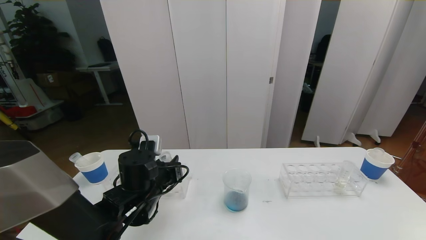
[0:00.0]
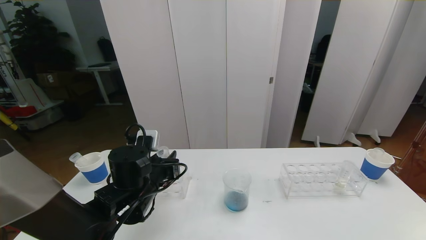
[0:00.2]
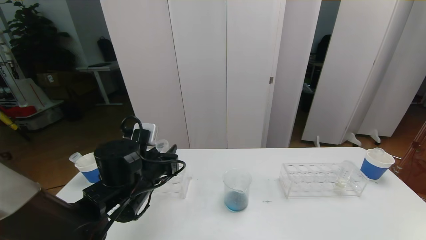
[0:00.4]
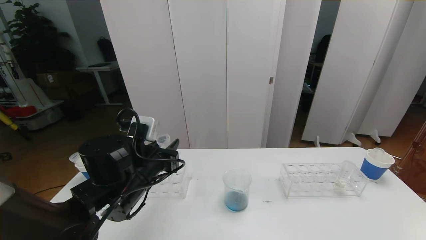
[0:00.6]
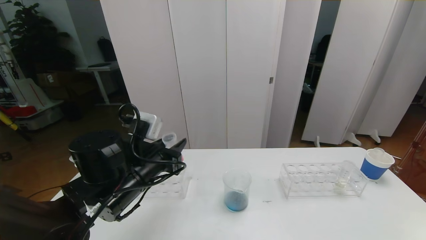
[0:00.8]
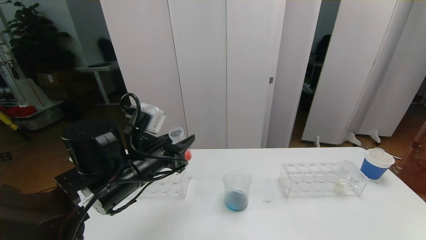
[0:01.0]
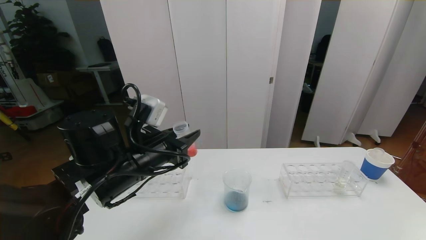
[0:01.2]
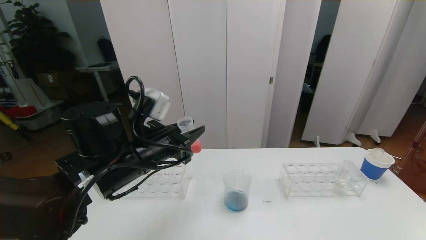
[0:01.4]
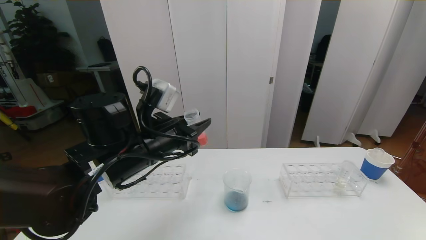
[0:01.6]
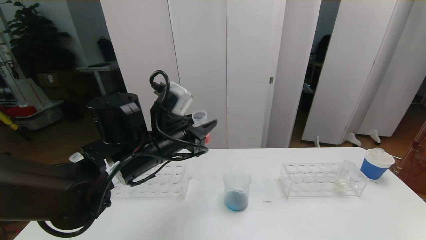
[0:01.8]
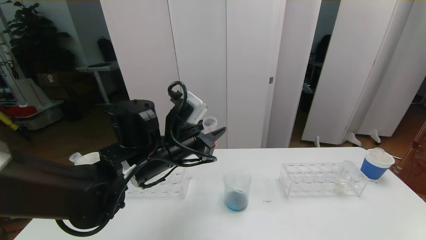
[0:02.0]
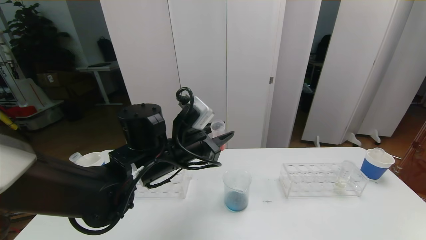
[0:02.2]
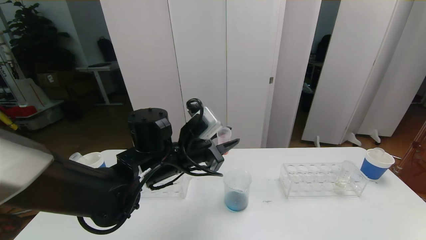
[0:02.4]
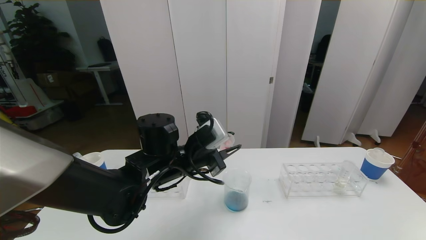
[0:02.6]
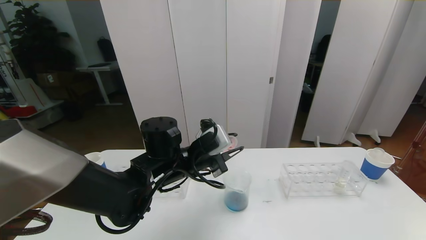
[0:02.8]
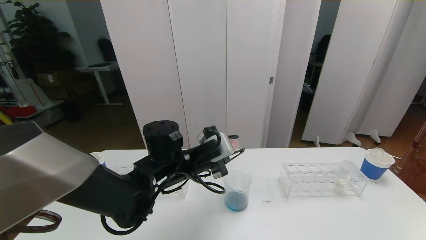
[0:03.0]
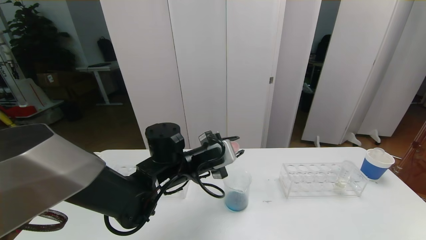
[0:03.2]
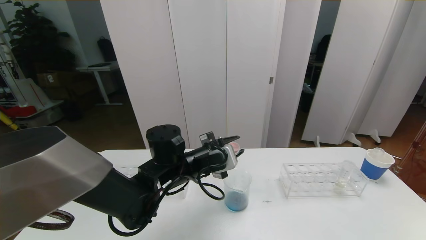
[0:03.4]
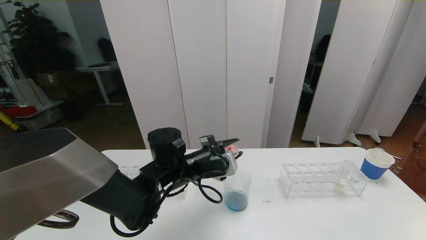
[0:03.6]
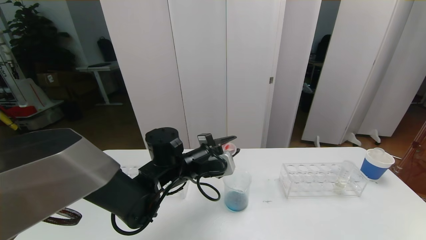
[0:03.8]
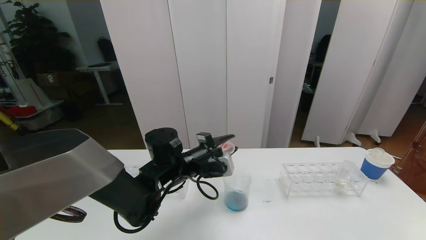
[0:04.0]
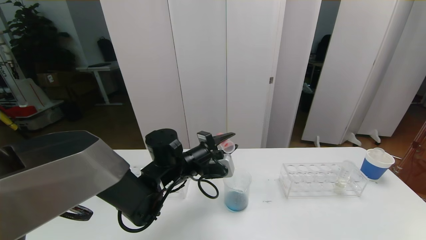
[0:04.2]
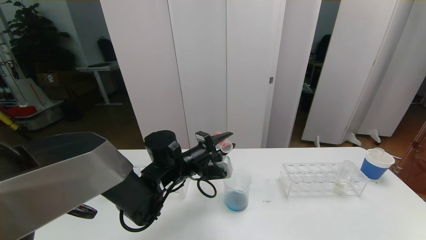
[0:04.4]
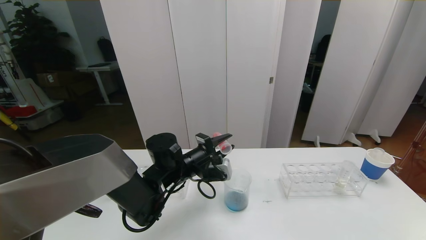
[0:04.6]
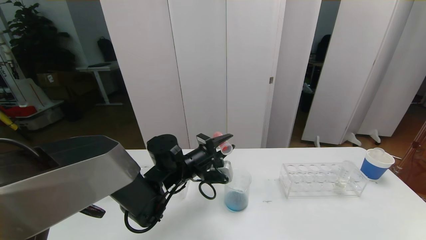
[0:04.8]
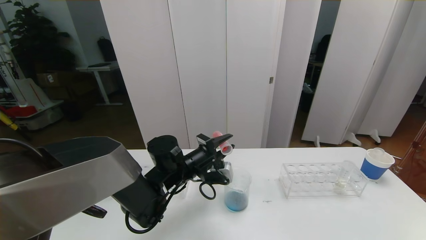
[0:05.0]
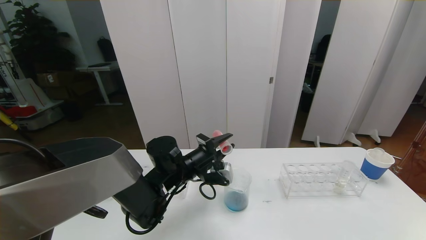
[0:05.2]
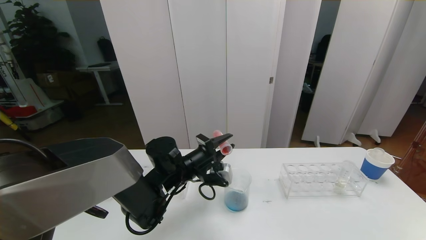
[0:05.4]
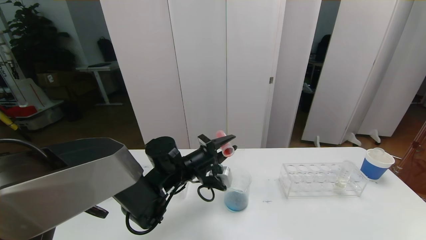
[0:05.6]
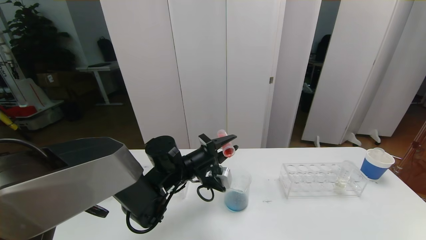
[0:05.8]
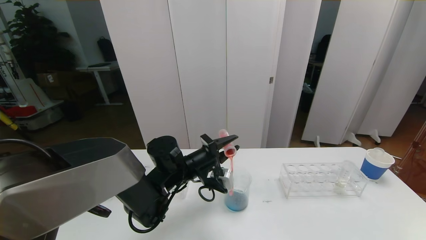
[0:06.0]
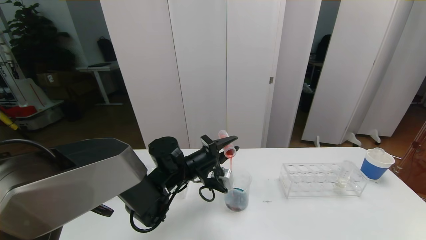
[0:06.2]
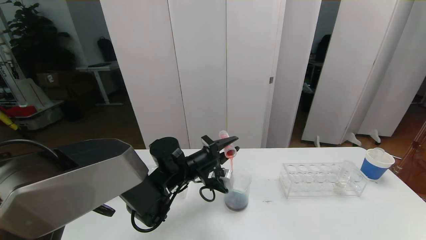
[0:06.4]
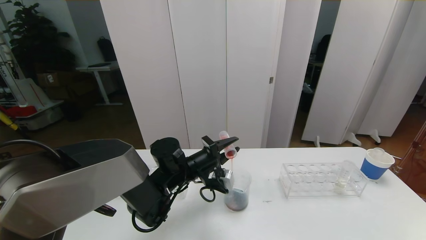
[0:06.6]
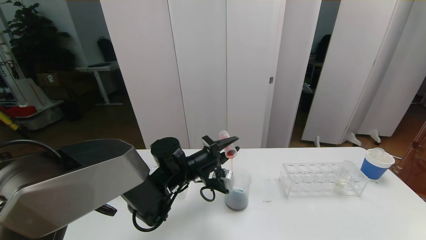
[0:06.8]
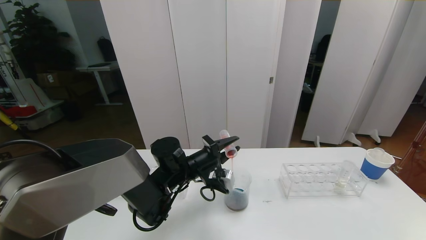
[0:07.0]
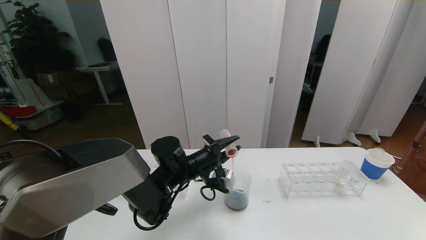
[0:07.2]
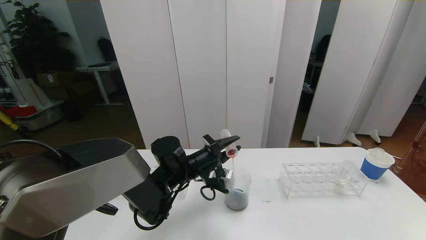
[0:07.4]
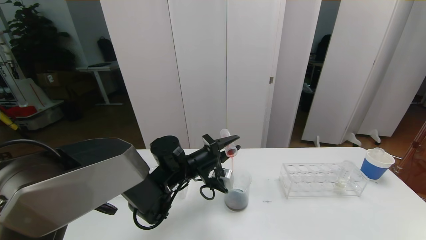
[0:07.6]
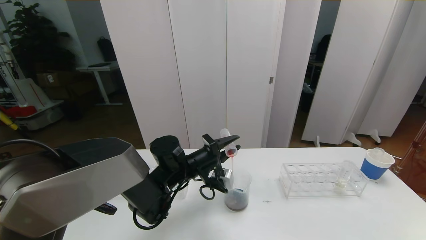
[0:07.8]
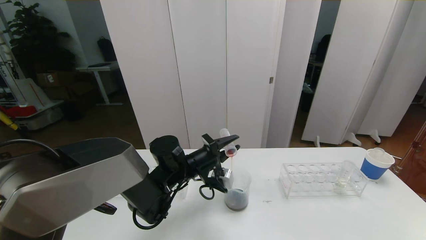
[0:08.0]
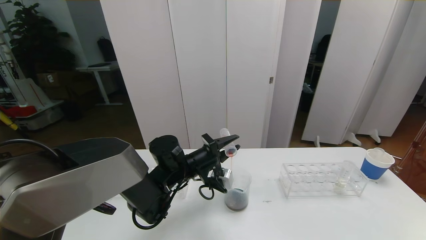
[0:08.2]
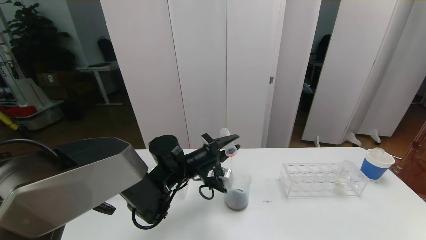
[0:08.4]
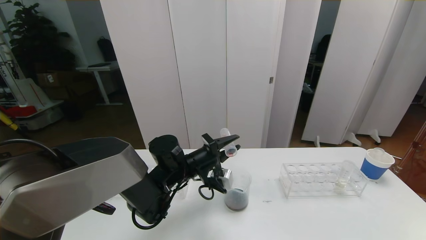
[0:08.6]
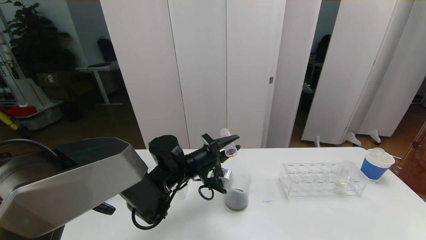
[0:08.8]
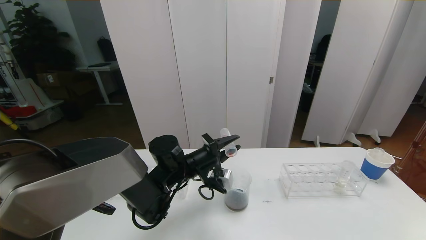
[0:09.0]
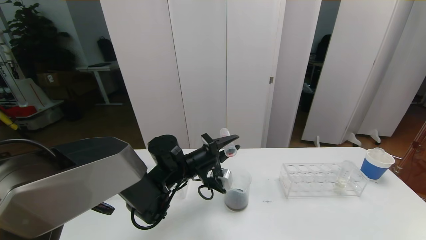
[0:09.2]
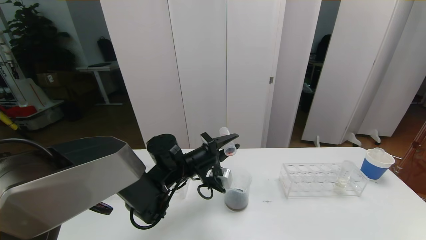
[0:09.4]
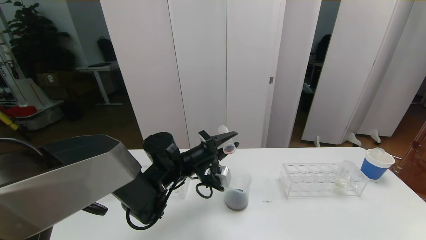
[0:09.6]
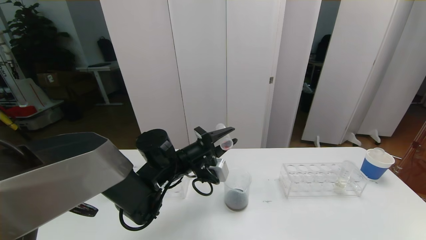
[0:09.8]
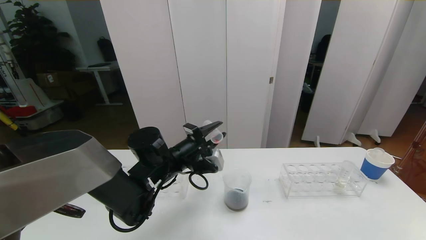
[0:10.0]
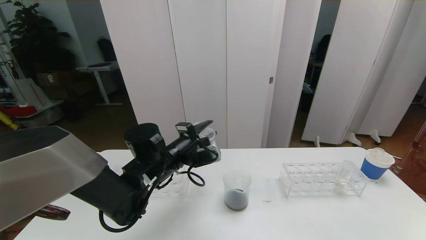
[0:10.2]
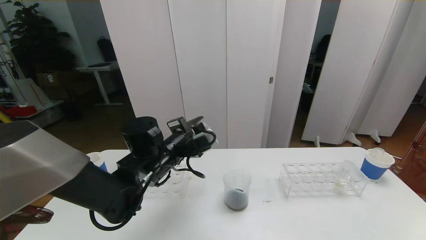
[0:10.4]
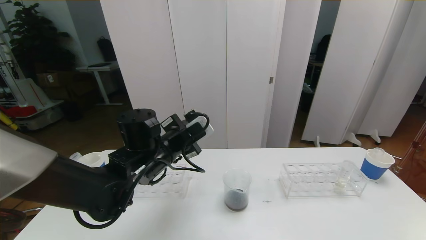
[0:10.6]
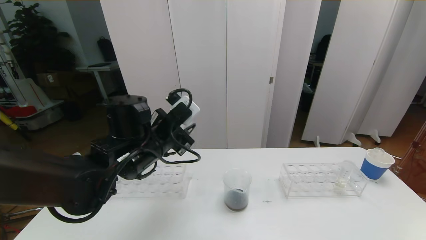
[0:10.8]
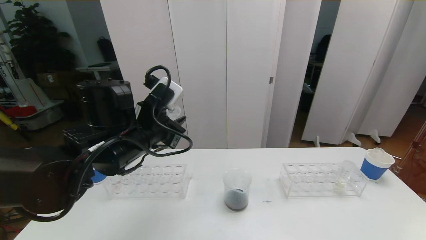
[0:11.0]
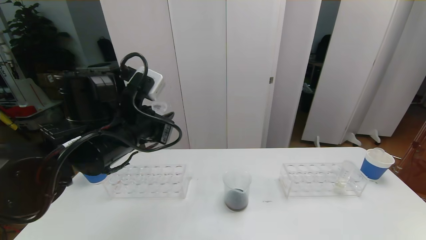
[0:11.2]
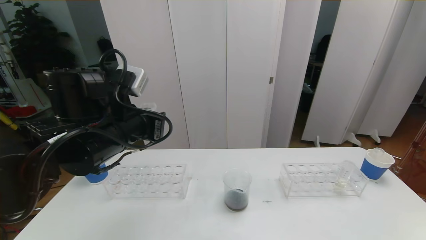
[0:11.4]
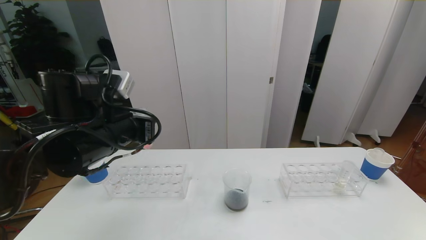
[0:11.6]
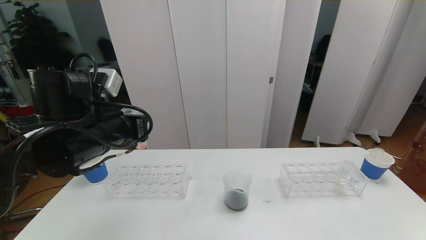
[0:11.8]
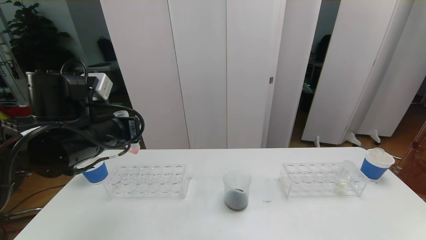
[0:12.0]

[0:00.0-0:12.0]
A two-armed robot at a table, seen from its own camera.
Task of the whole recording: pick up the test tube with red pigment the test tube with blue pigment and the test tube with white pigment by grippers and pour them into the beaker.
0:00.0 to 0:01.6: The left gripper moves upward, approximately 10 cm.
0:01.6 to 0:03.0: The left gripper moves downward, some 5 cm.
0:04.4 to 0:06.0: The grippers make only small movements.
0:06.0 to 0:09.0: The two grippers keep their place.
0:09.0 to 0:10.4: The left gripper heads upward, covering approximately 5 cm.
0:10.4 to 0:12.0: The left gripper shifts some 15 cm to the left, upward and backward.

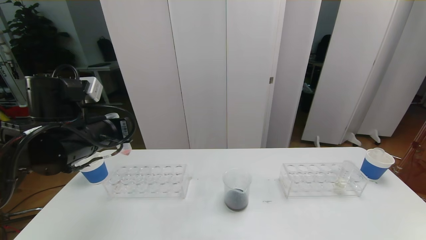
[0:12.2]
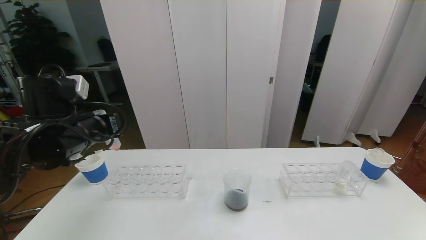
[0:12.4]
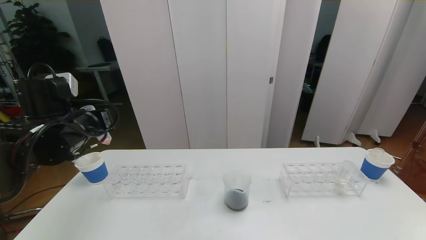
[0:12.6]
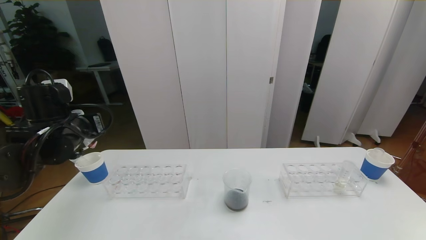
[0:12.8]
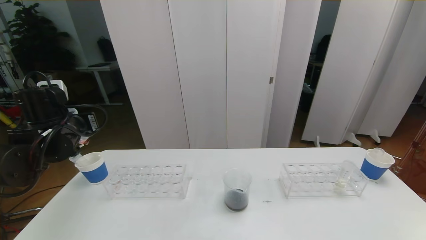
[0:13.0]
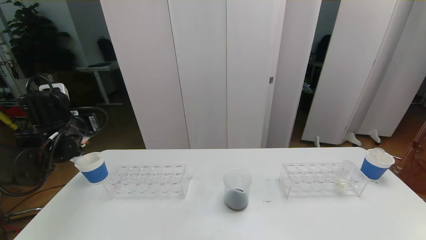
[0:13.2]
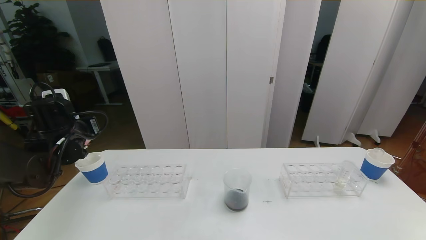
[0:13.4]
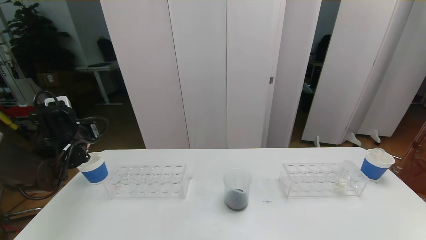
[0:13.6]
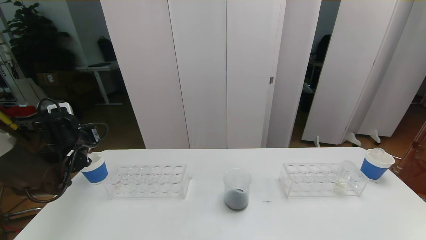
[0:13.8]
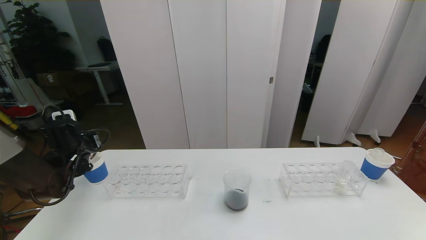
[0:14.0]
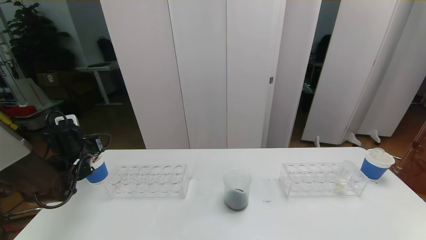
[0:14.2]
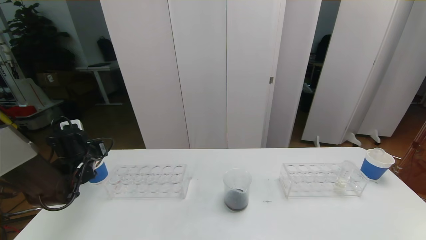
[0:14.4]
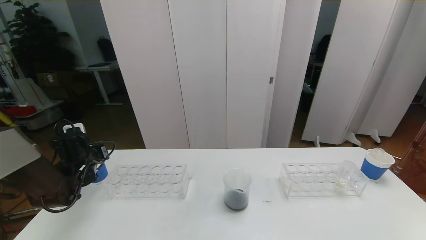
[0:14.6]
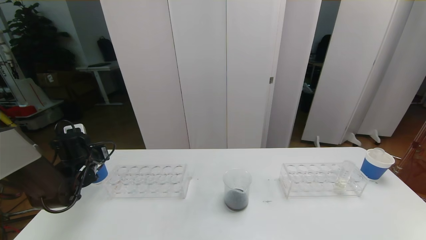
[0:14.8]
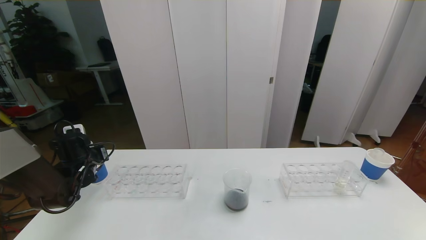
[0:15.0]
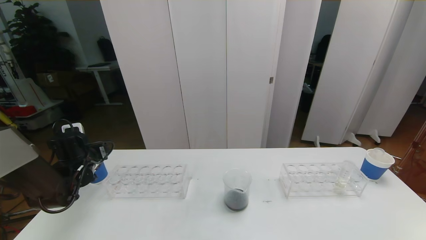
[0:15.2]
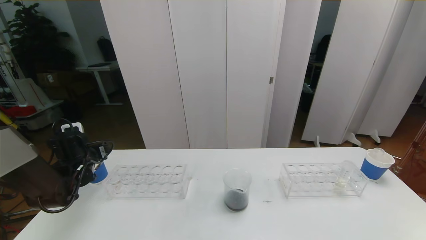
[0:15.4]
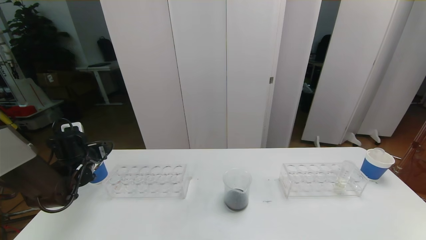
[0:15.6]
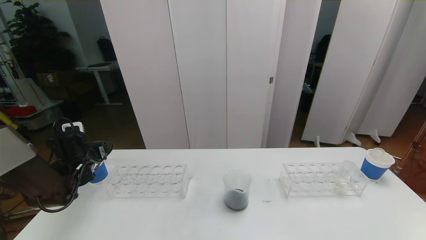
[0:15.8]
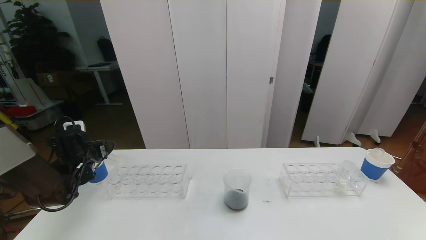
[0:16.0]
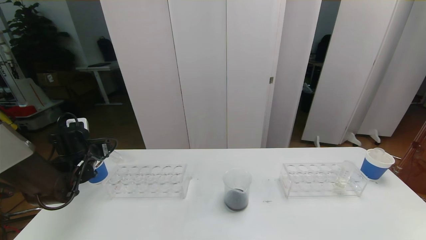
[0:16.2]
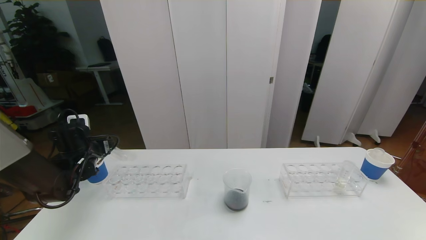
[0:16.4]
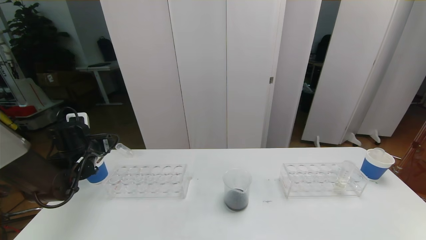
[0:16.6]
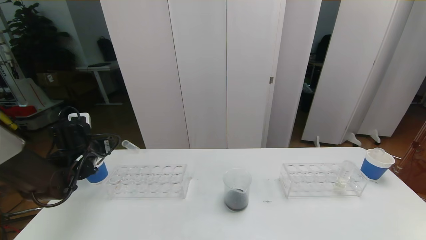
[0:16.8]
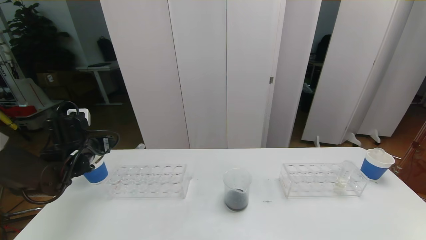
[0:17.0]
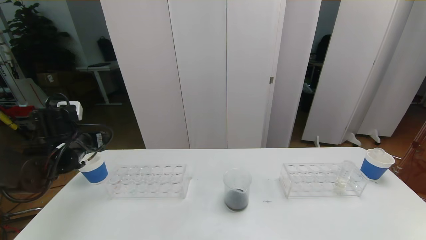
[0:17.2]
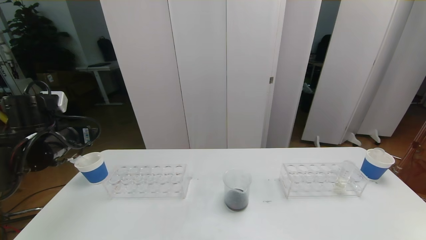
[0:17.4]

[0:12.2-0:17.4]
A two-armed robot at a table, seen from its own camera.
Task of the whole recording: pick up the test tube with red pigment the test tube with blue pigment and the test tube with white pigment by grippers and pour them into the beaker.
0:12.2 to 0:14.0: The left gripper moves to the left, downward and forward, some 20 cm.
0:14.0 to 0:15.6: The left gripper opens.
0:15.6 to 0:17.4: The left gripper is displaced upward and backward by approximately 15 cm.
